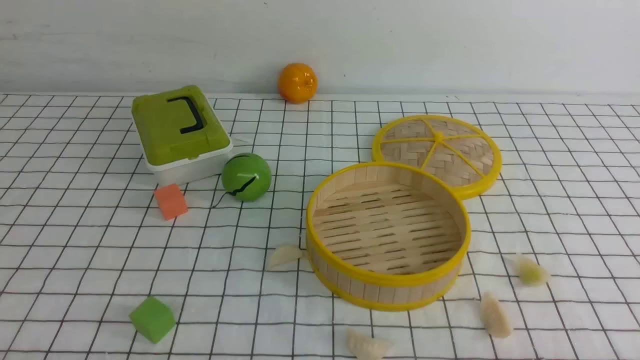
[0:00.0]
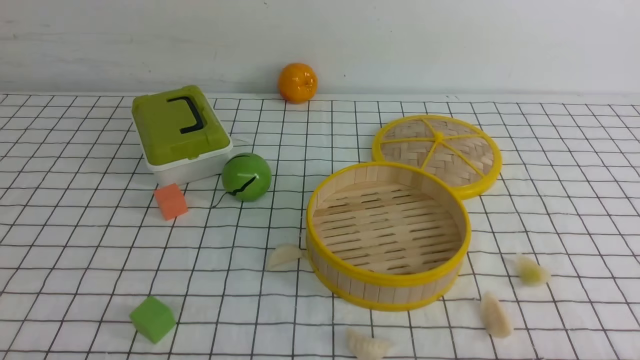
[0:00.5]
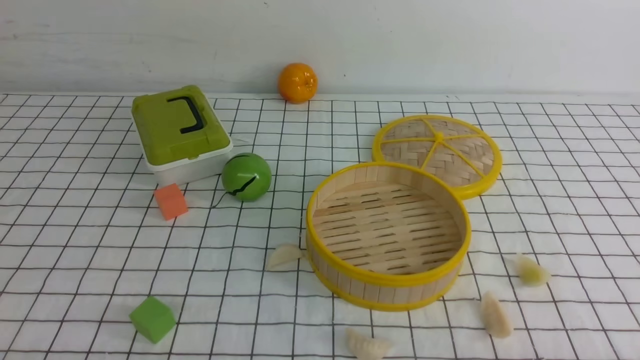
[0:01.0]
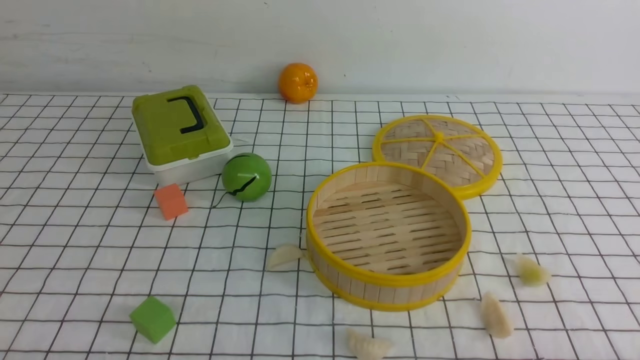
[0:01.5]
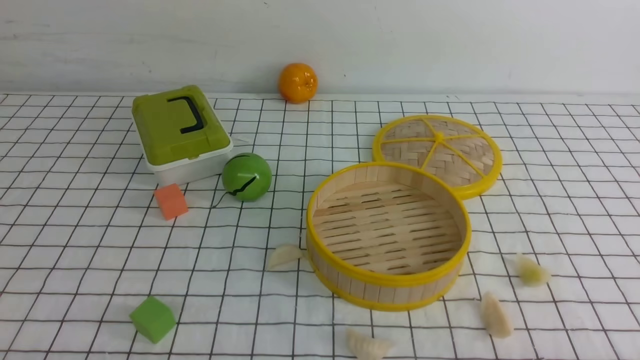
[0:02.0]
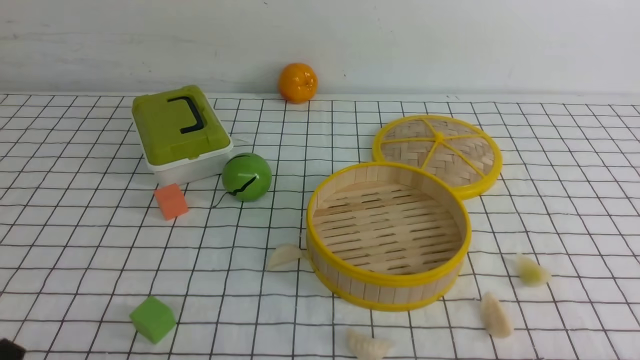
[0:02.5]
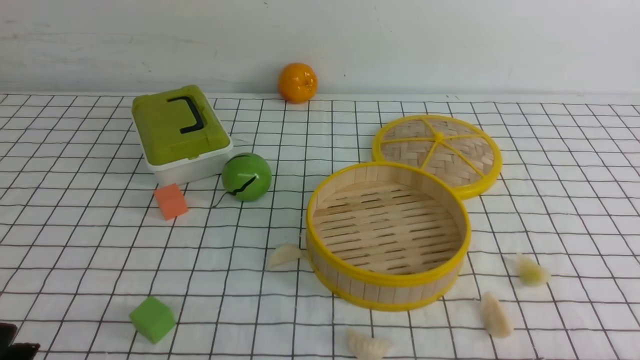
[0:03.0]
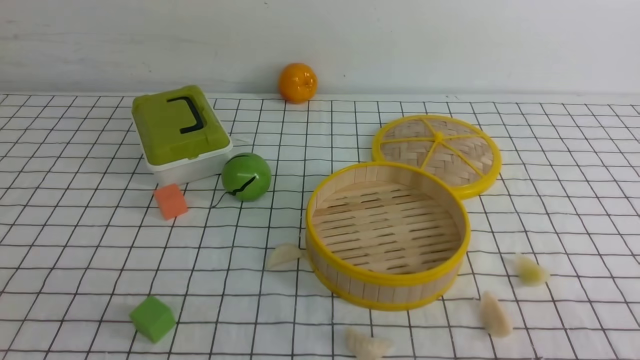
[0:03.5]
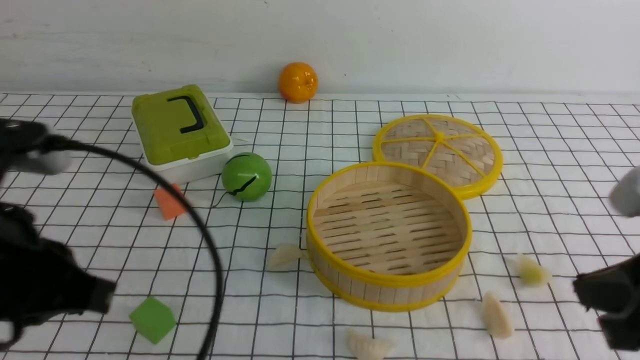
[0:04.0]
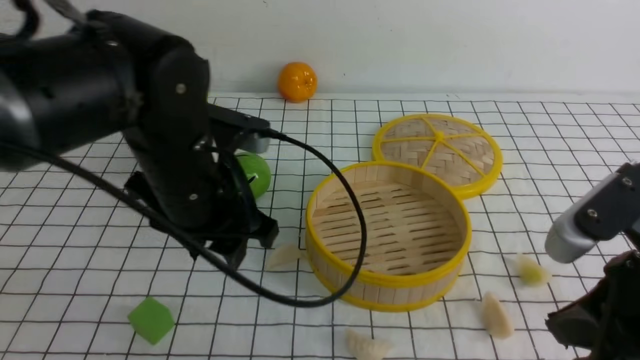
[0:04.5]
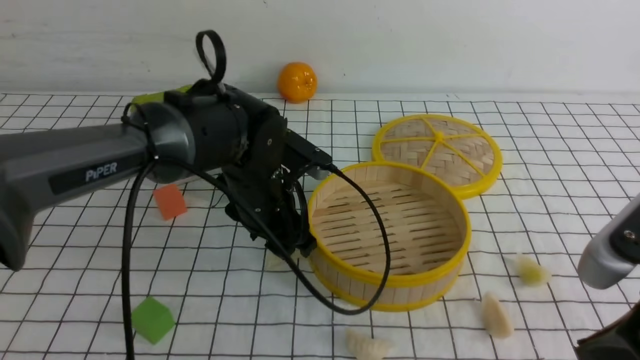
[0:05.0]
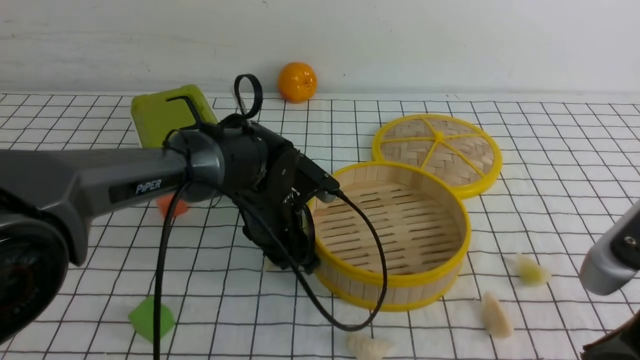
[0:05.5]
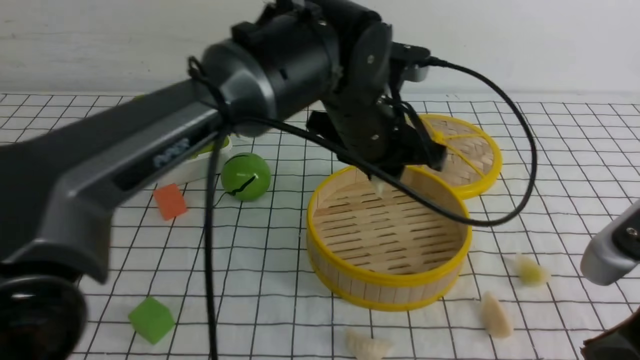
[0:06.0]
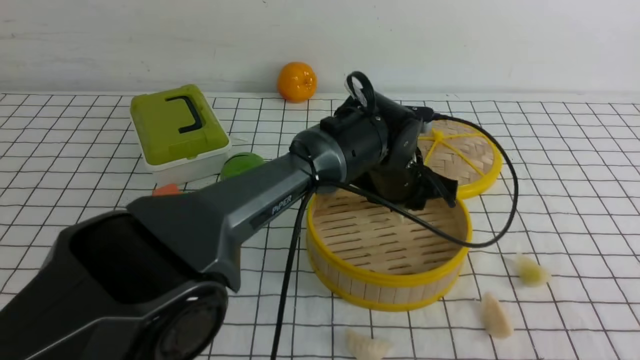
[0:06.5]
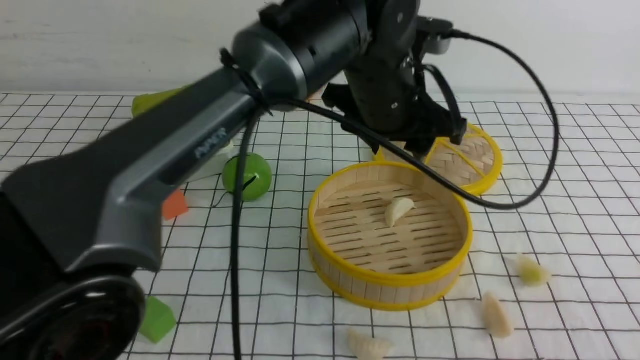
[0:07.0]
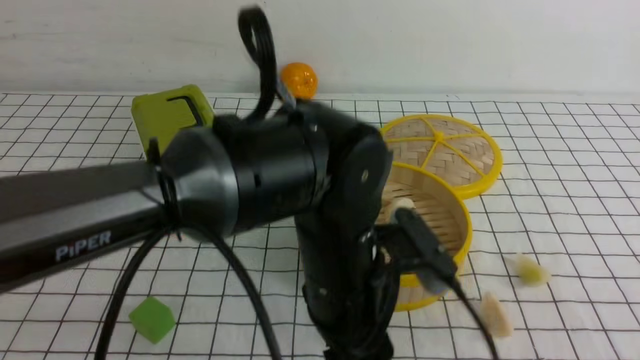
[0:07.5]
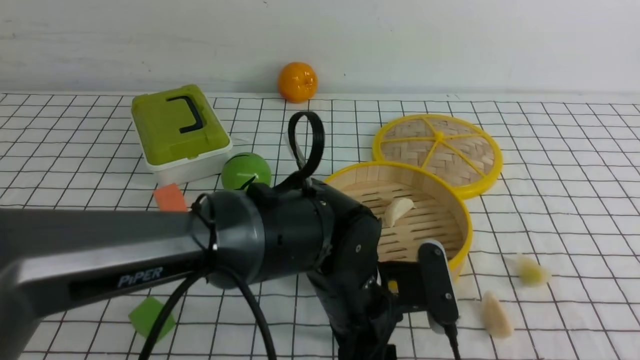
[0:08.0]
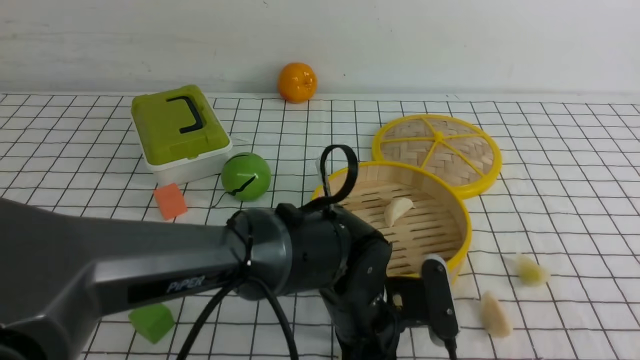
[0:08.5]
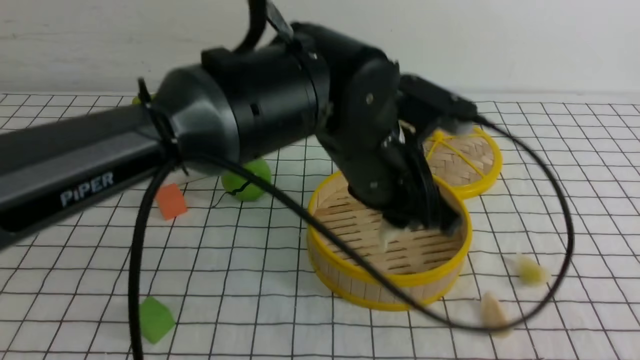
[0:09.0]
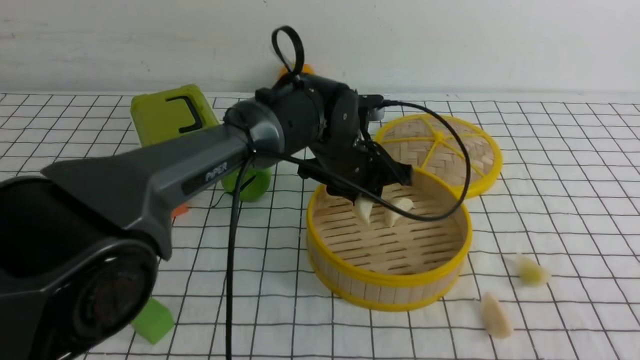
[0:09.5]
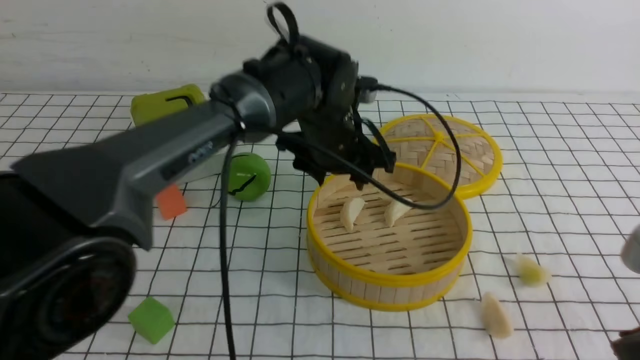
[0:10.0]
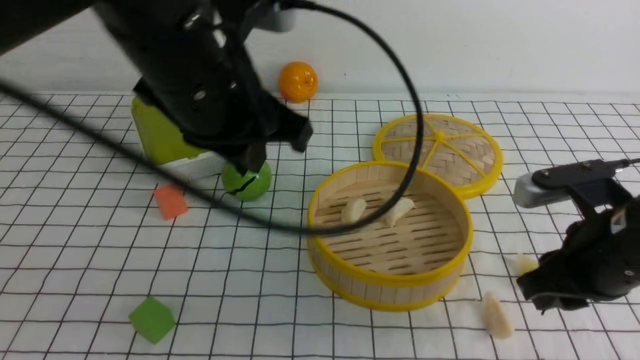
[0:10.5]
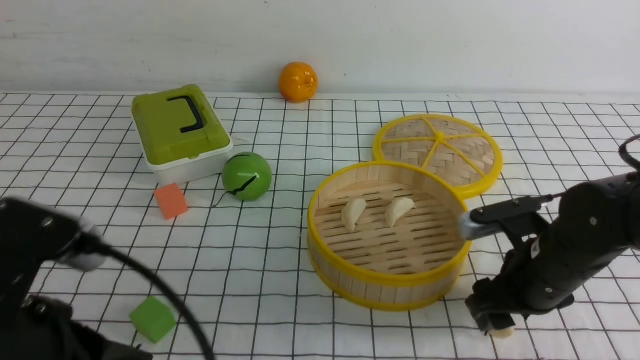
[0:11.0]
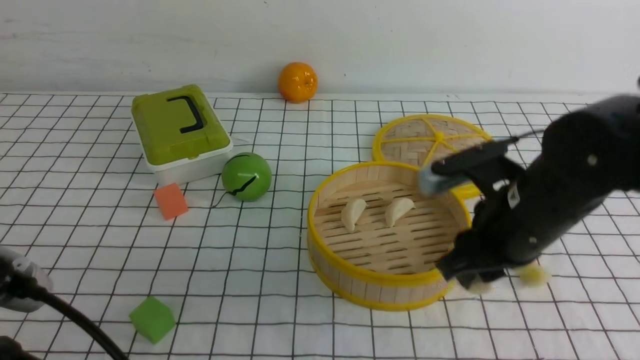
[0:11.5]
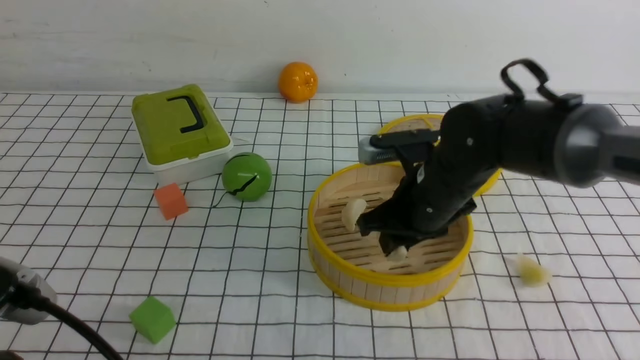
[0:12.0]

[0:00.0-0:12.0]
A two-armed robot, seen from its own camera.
Task of the whole recording: put the dumplings into the steamer on the table with the white tablecloth.
Step, 0:00.0 to 0:05.0: use the left arm to grab a dumpling.
Step, 0:05.5 to 0:06.5: use the left arm to put the dumpling into the steamer.
Step, 0:07.0 to 0:08.5: use the left arm to grab a dumpling.
Step, 0:09.0 to 0:10.0: use the left arm to put the dumpling into the steamer.
Step, 0:10.5 to 0:11.0: use the right arm to grab a dumpling.
0:02.0 to 0:04.0: The left gripper goes roughly 25 cm forward, upward and to the right; the right gripper is displaced upward, forward and to the left by approximately 20 cm, and closes its fingers.
0:04.0 to 0:06.0: The left gripper is displaced to the right and forward by some 25 cm, and opens and closes again.
0:06.0 to 0:08.0: The right gripper moves some 5 cm. The left gripper heads backward and downward, covering about 15 cm.
0:08.0 to 0:10.0: The right gripper goes approximately 20 cm forward and downward, and opens up, while the left gripper travels upward and to the left by some 25 cm, and closes.
0:10.0 to 0:12.0: The left gripper moves backward, to the left and downward, roughly 25 cm; the right gripper heads forward and to the left, covering about 15 cm, and opens up.

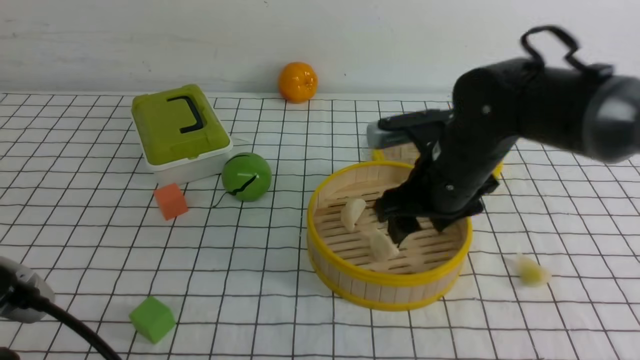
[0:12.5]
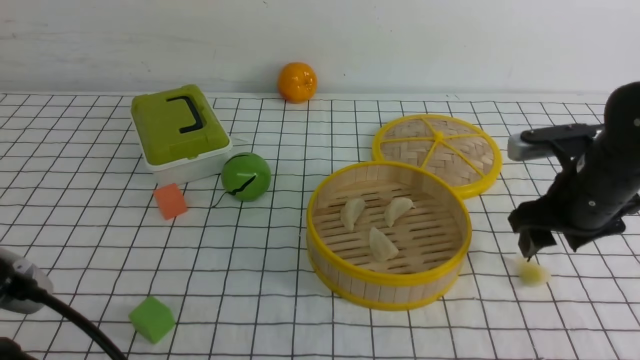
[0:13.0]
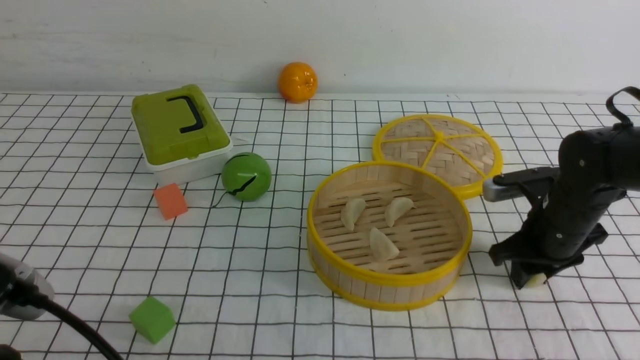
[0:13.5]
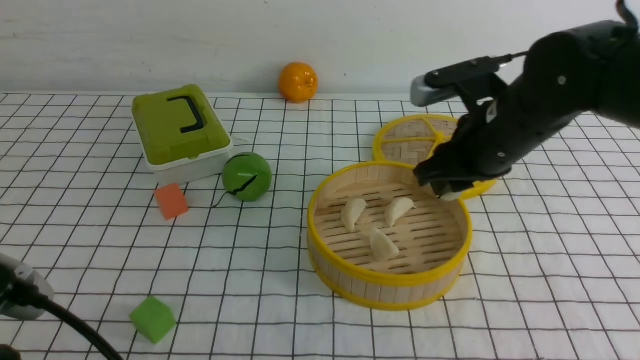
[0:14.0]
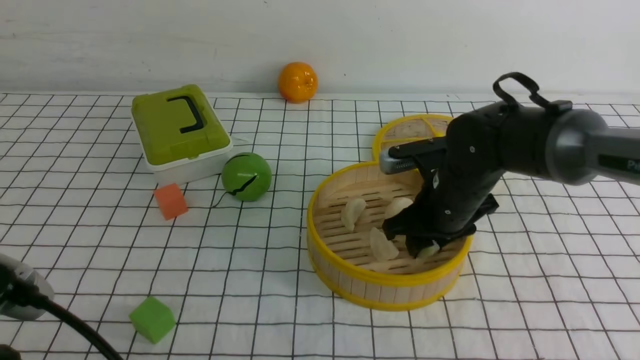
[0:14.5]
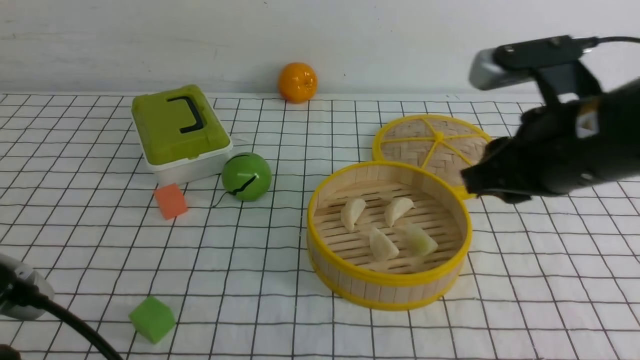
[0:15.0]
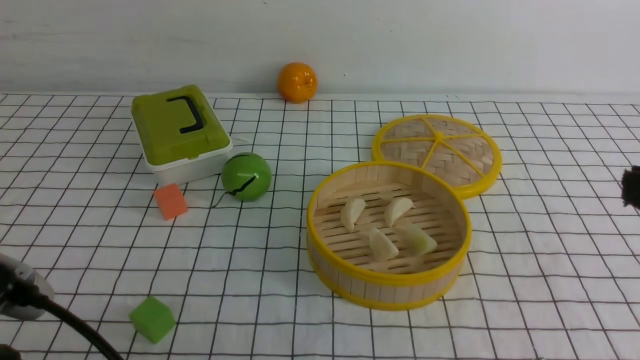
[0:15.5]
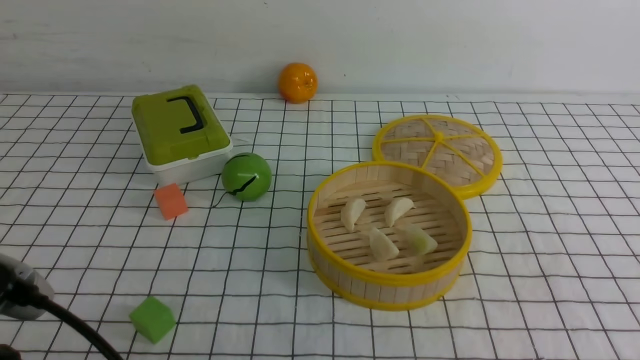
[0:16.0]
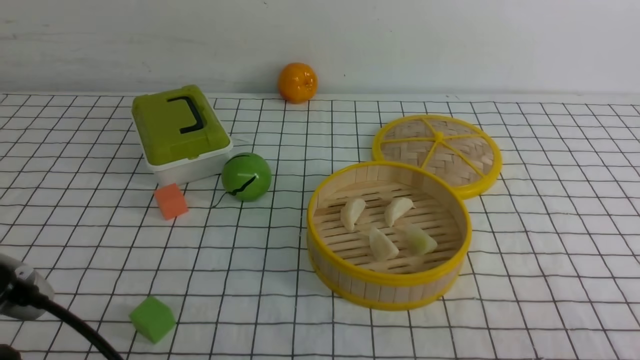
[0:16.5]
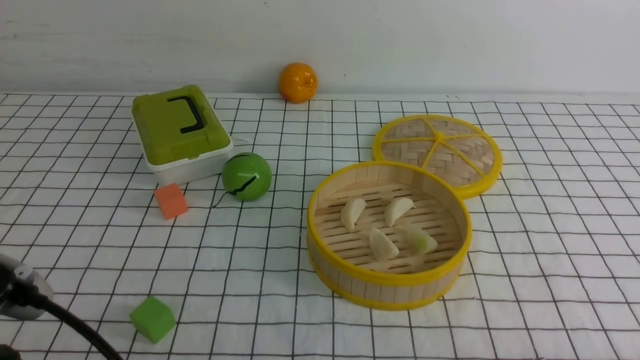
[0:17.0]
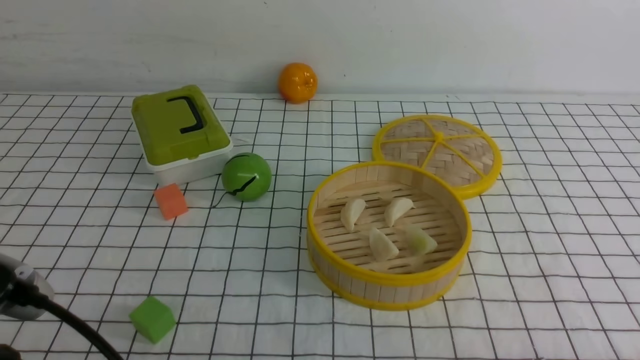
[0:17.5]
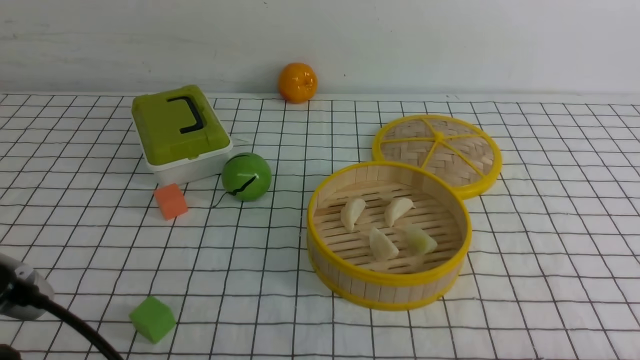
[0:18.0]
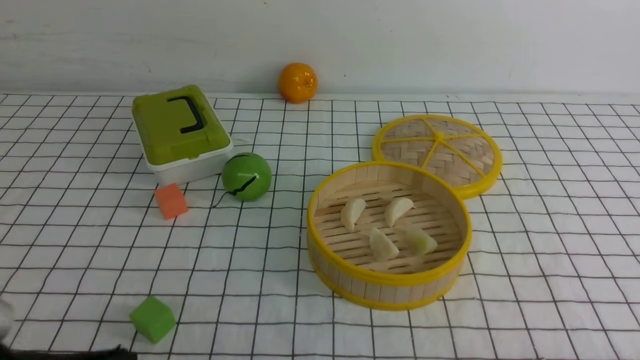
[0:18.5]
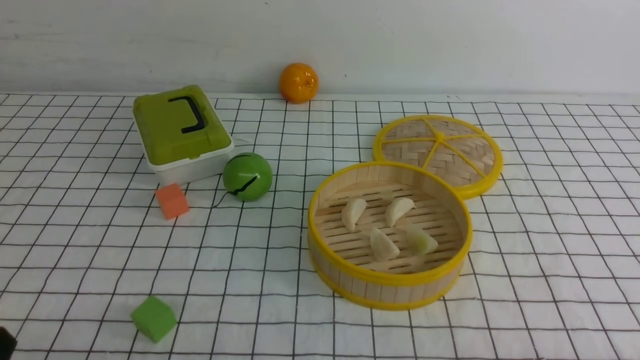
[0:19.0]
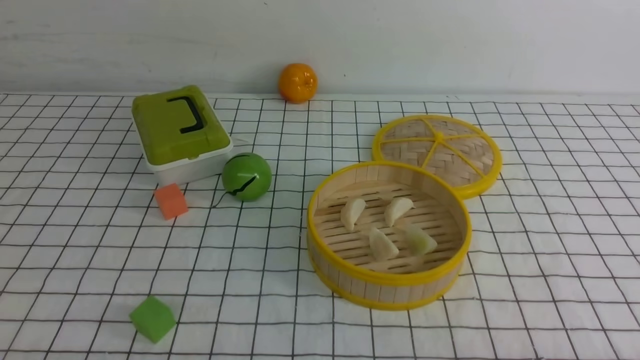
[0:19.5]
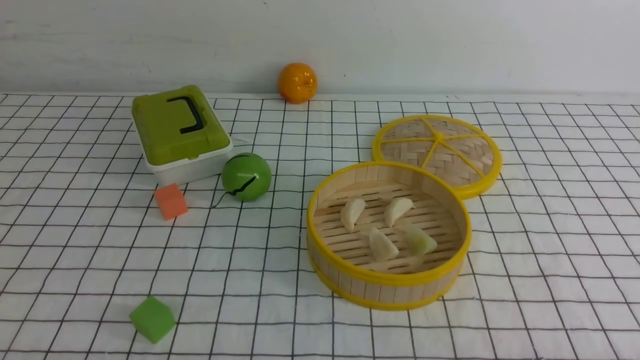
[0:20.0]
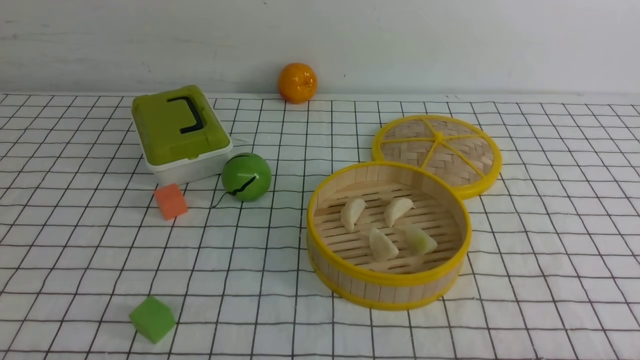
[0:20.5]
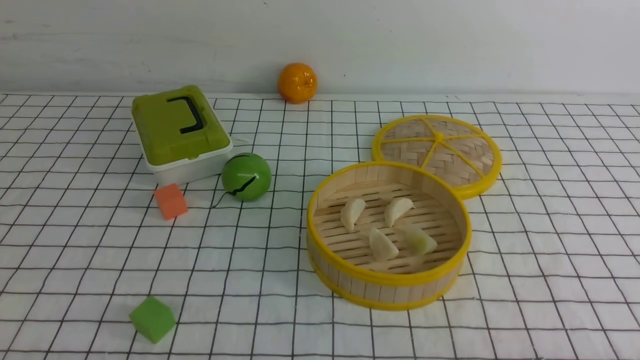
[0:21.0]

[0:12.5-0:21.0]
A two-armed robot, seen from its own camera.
Task of the whole recording: put the dumplings into the steamer on the table with the white tablecloth.
Step, 0:13.0 to 0:13.5: use the right arm to grab a dumpling.
Step, 0:14.0 to 0:14.5: use the right arm to put the dumpling into the steamer.
0:12.5 to 0:14.5: The right gripper shifts roughly 10 cm to the left and downward.
0:14.5 to 0:16.5: The right gripper travels backward and to the right by some 35 cm, and closes its fingers.
0:16.5 to 0:19.0: The left gripper is displaced downward and to the left by approximately 10 cm.
